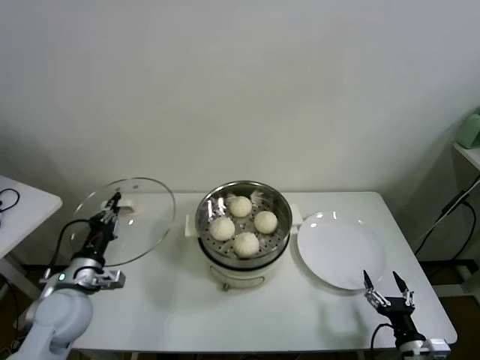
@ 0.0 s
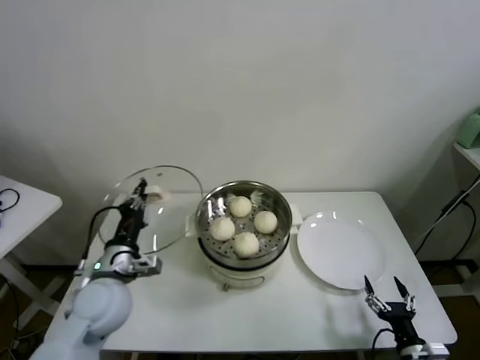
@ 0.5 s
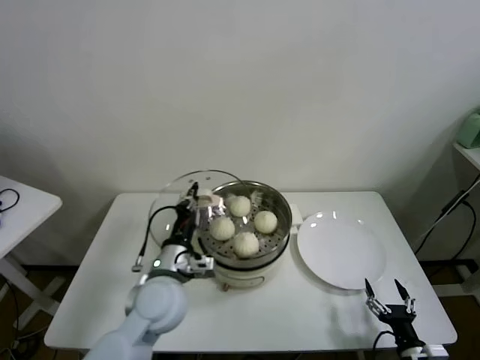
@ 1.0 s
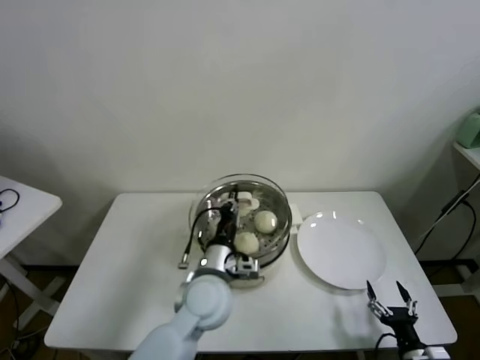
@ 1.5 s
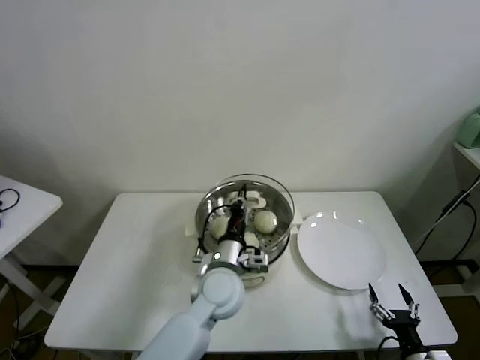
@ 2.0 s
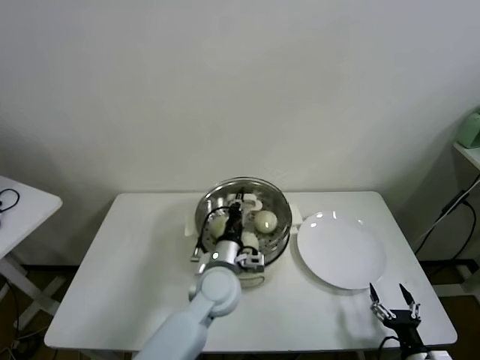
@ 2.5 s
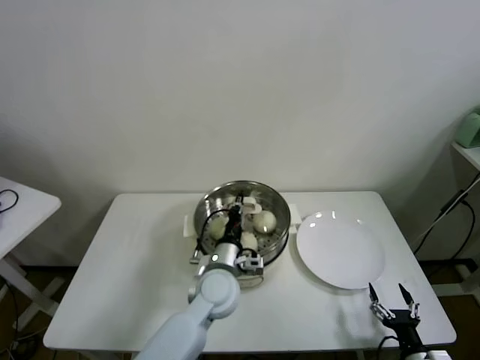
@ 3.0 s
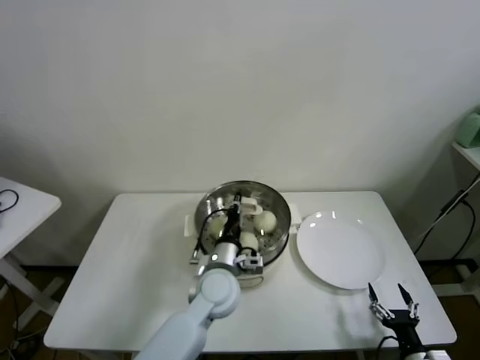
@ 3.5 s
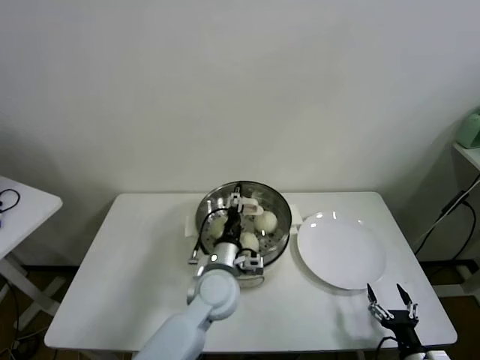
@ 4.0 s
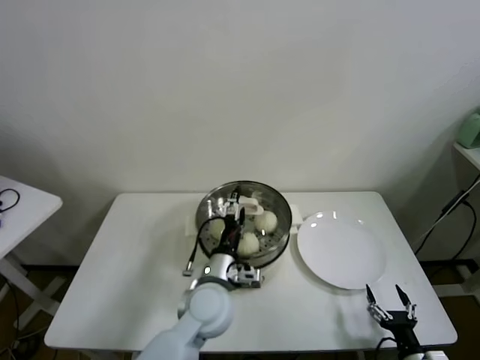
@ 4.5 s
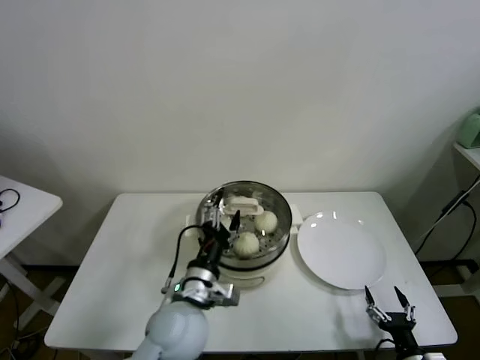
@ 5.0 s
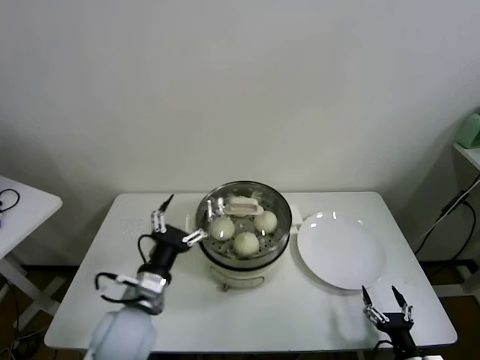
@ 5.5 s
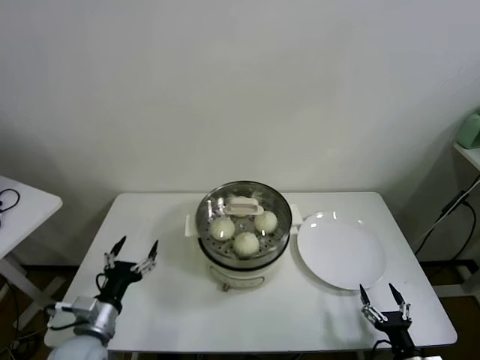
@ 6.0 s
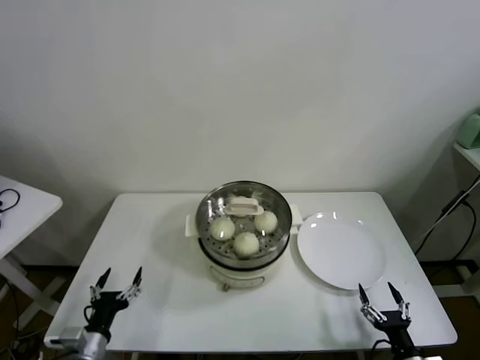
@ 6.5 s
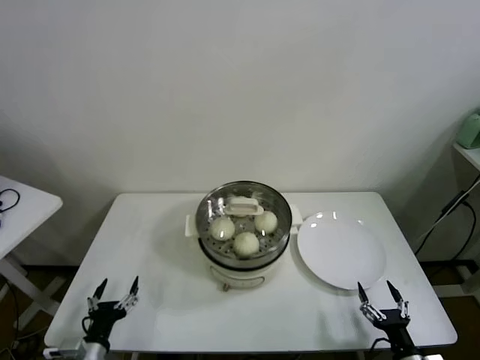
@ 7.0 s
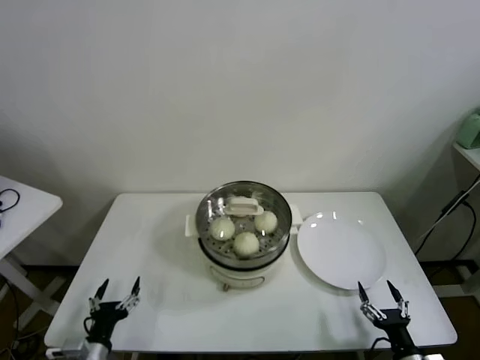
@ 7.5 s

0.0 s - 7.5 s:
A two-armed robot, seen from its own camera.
Task of the whole recording: take steamed baozi put them in steamer.
Step, 0.0 s - 4.5 s: Place the pot lid on the steamer with left gripper.
0.0 s - 2.0 s: The left gripper travels to the right by approximately 30 cm.
2.0 s - 4.0 s: The left gripper opens its fingers.
4.0 s - 5.5 s: The left gripper travels to the left and backward by about 15 cm.
5.5 s - 7.5 s: The left gripper goes about 25 cm downward, to the left and backward.
